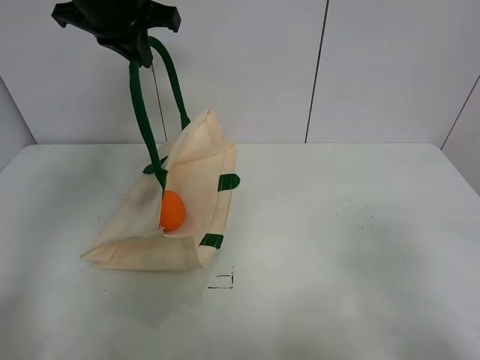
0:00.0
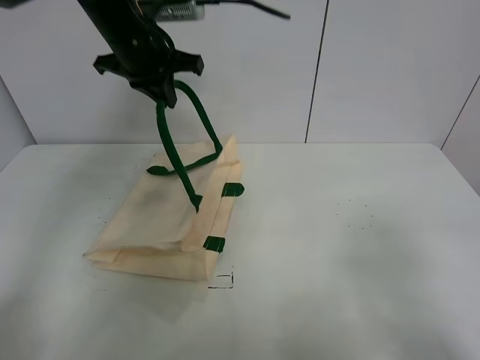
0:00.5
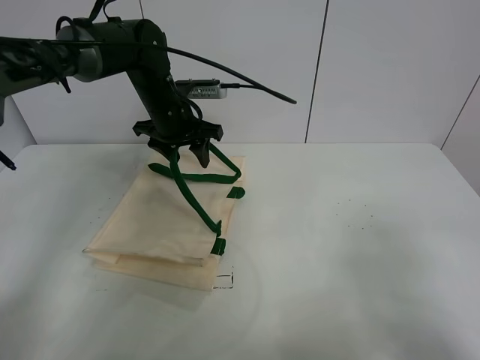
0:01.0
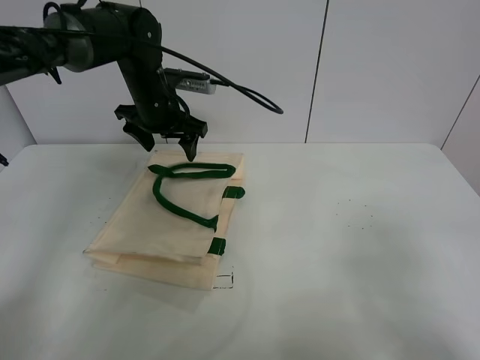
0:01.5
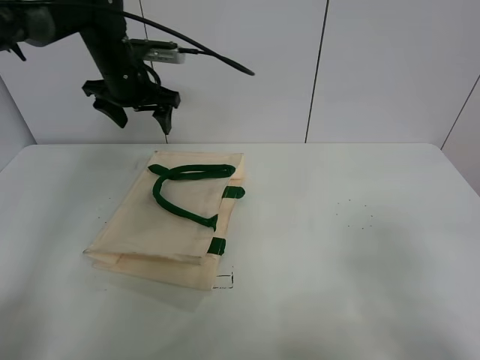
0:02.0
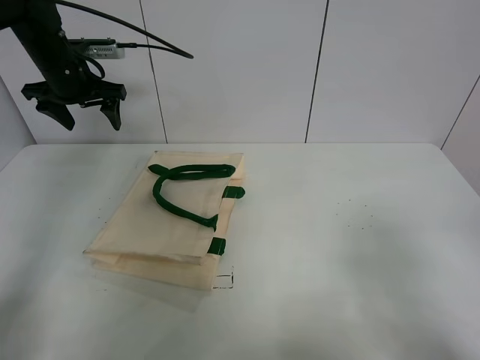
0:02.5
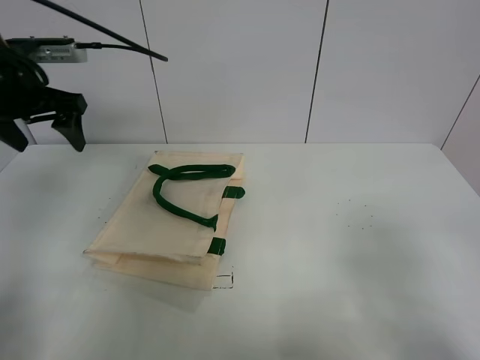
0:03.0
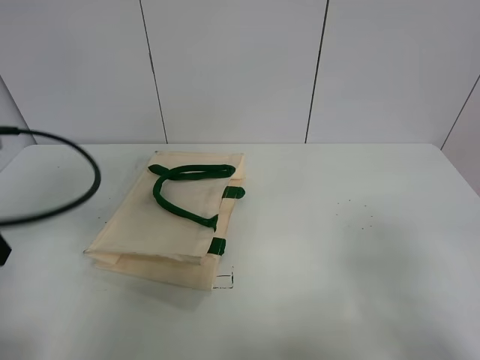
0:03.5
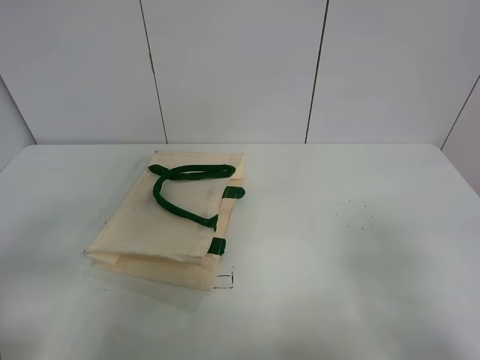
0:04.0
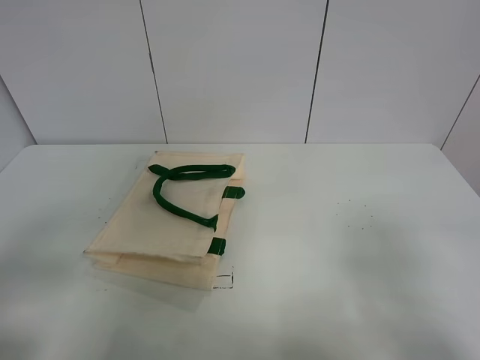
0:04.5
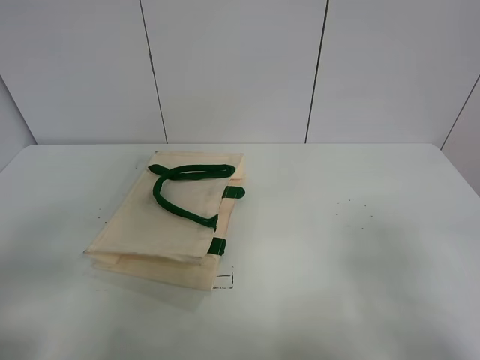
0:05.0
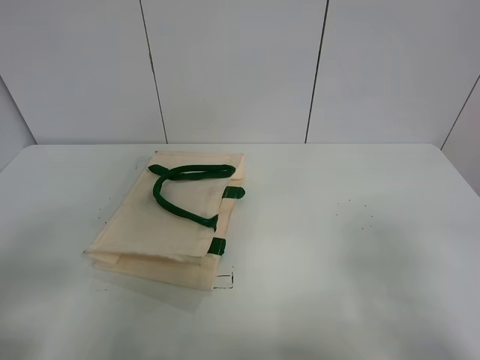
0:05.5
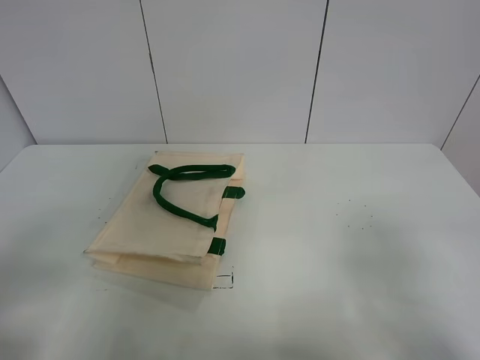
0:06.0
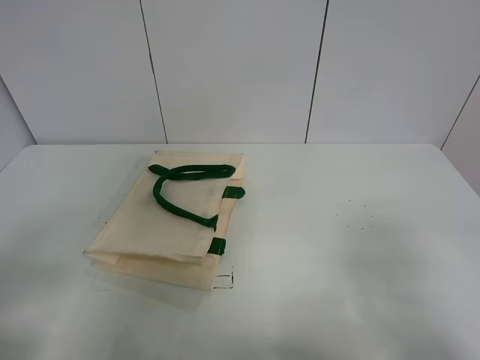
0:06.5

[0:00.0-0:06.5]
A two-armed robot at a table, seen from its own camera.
Task of the whole recording: open the white linen bag and put the orange in the bag.
0:00.0 to 0:02.0: The left gripper moves downward and forward, about 15 cm, and opens its fingers.
0:02.0 to 0:04.5: The left gripper is displaced backward by about 40 cm.
